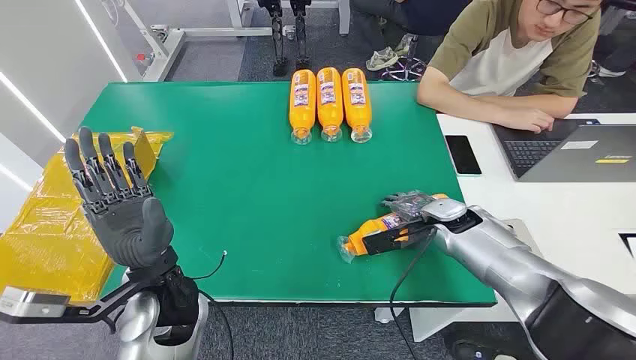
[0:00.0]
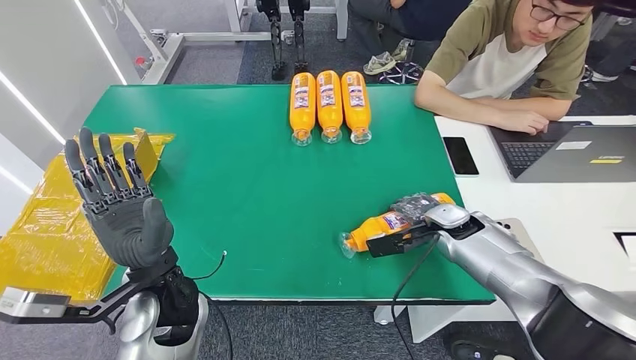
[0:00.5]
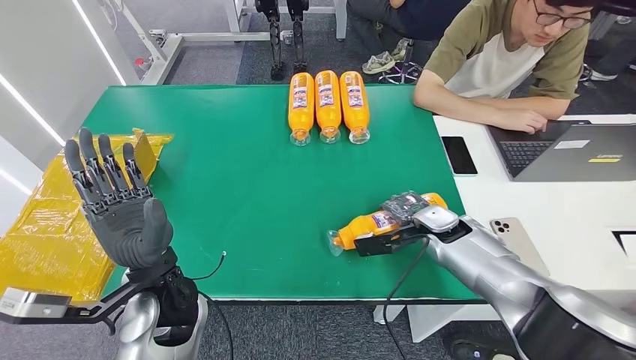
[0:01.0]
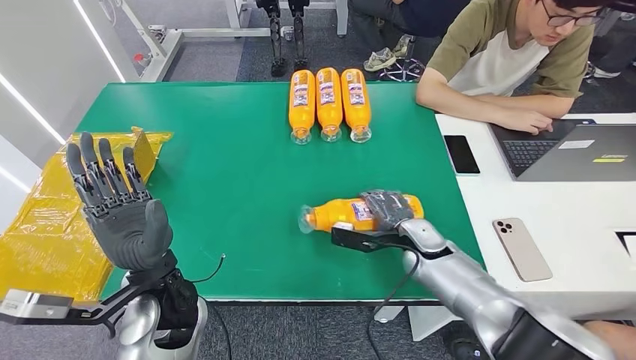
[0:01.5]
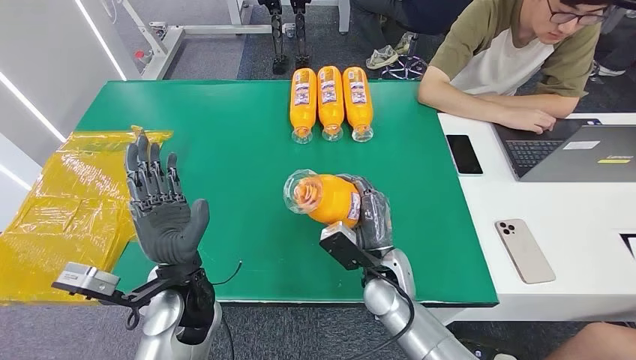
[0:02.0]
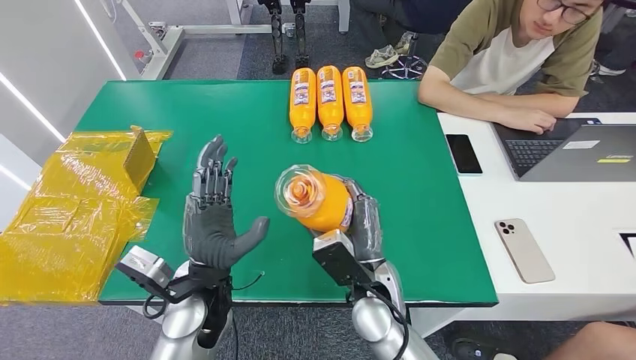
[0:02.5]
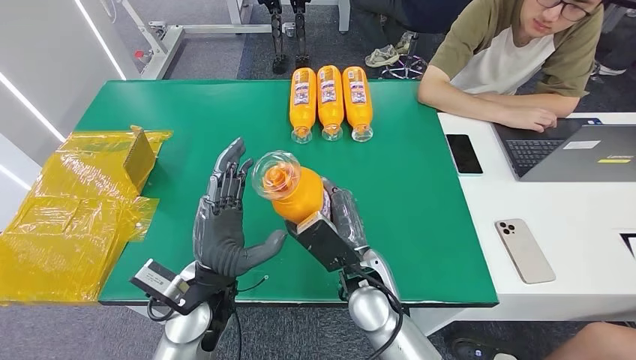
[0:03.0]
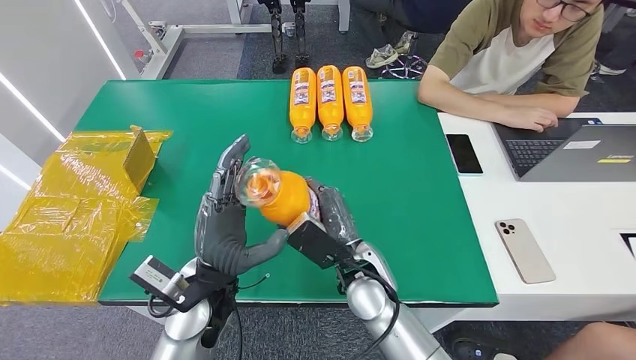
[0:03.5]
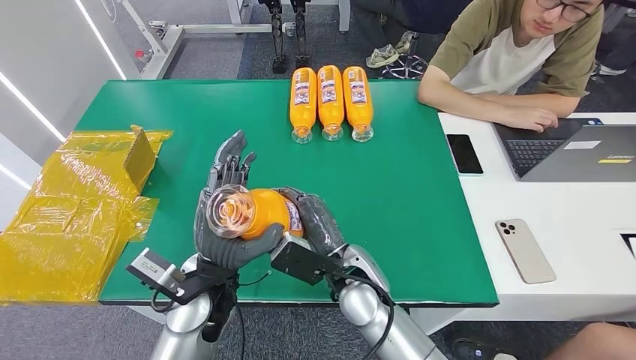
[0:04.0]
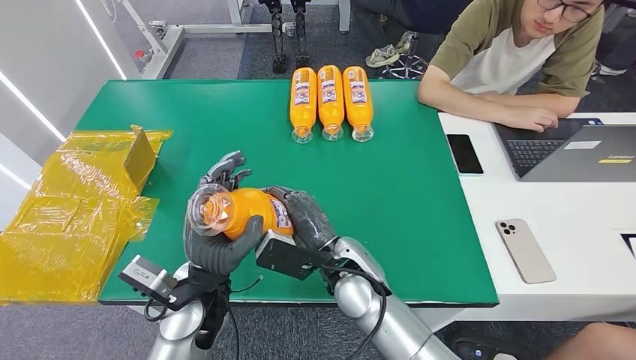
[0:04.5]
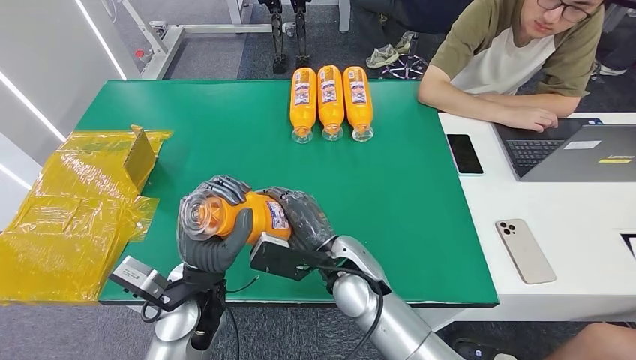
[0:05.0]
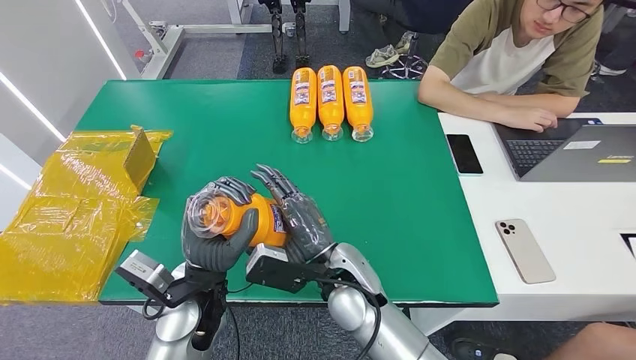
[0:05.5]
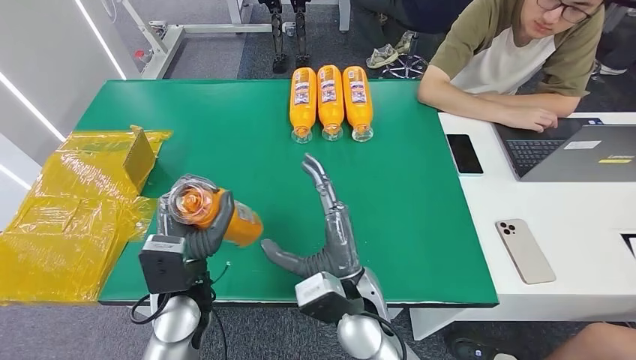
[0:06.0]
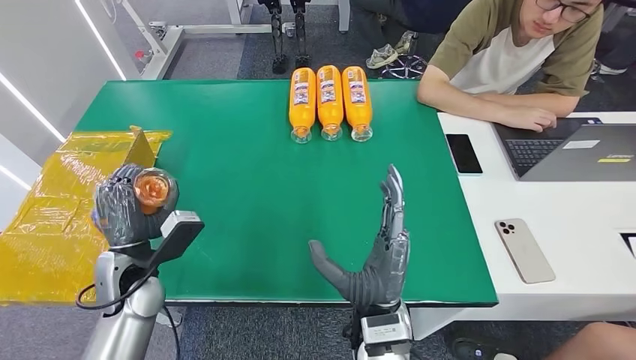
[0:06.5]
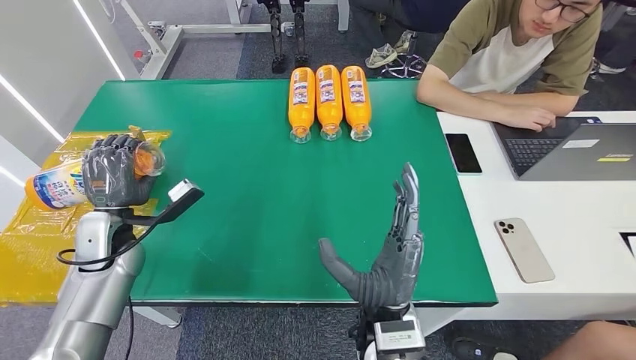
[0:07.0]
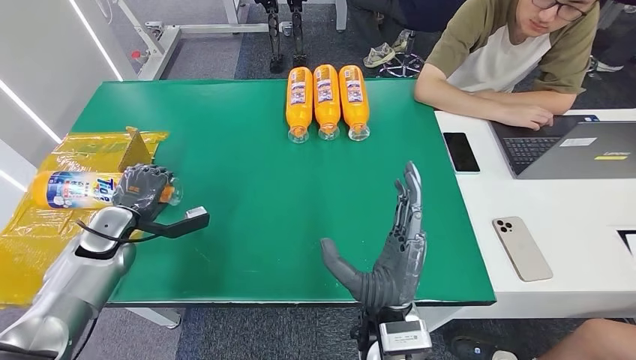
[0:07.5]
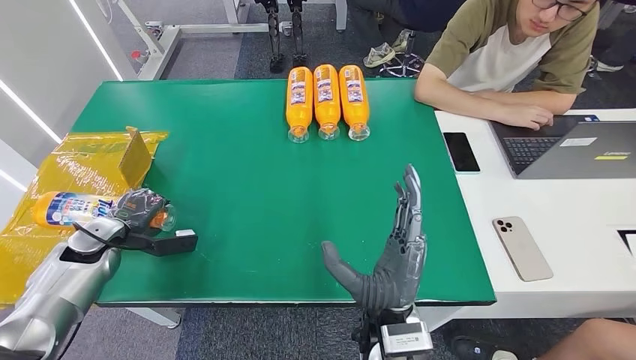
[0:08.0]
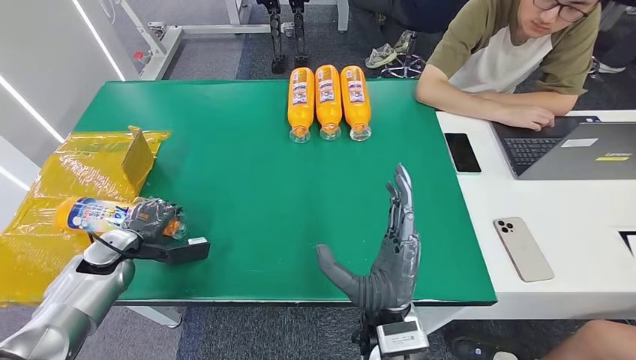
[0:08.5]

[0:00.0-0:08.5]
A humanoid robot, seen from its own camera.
Step, 0:00.0 to 0:03.0: Pick up the bottle from the table.
Step, 0:03.5 to 0:08.5: Turn the bottle to the front side.
0:02.0 to 0:04.0: The right hand heads to the left and upward, covering about 10 cm.
0:04.0 to 0:06.5: The left hand heads to the left, covering some 15 cm, while the right hand heads backward, covering about 10 cm.
0:06.5 to 0:08.5: The left hand is displaced to the left by roughly 15 cm.
